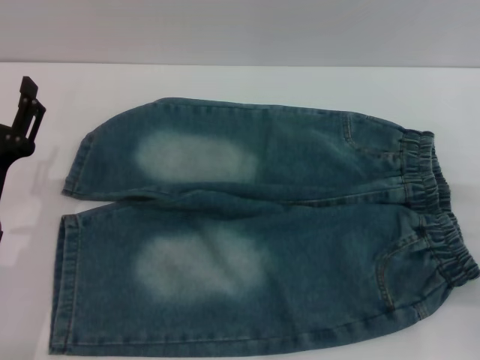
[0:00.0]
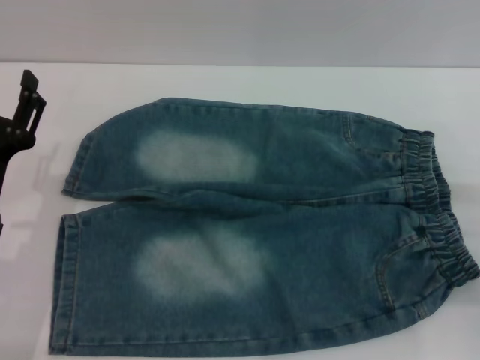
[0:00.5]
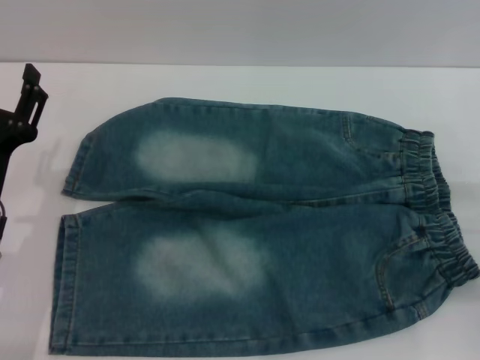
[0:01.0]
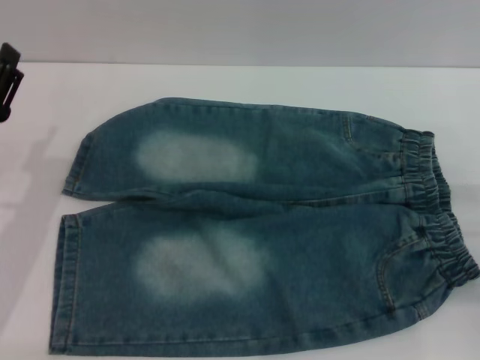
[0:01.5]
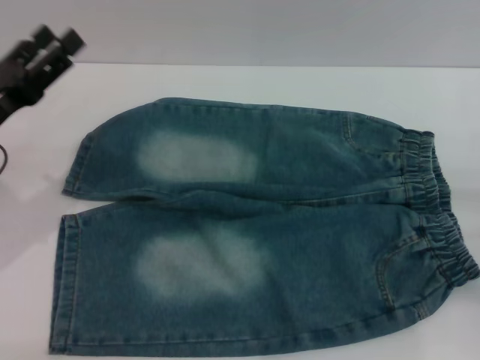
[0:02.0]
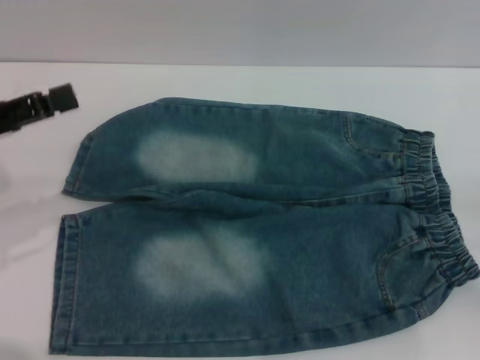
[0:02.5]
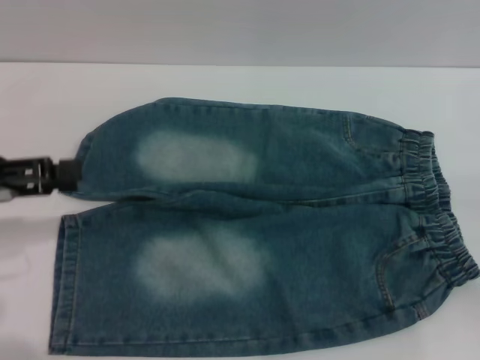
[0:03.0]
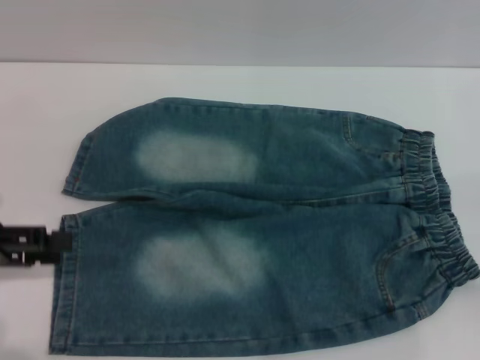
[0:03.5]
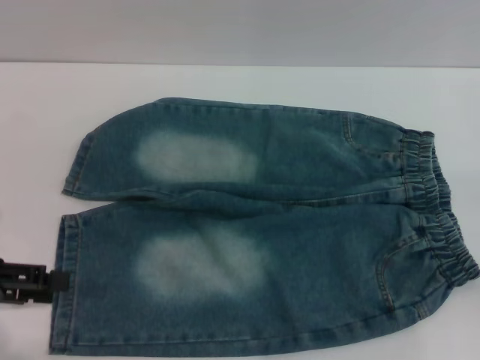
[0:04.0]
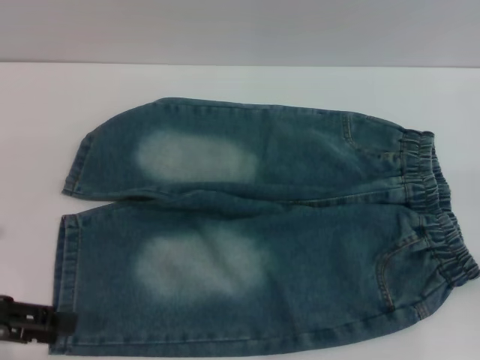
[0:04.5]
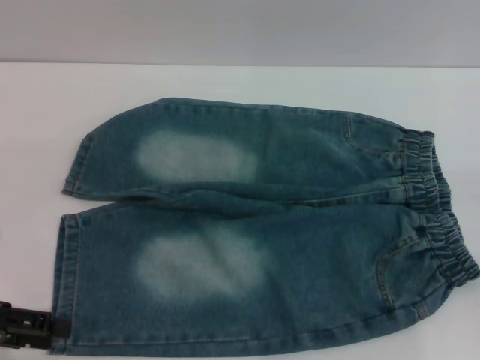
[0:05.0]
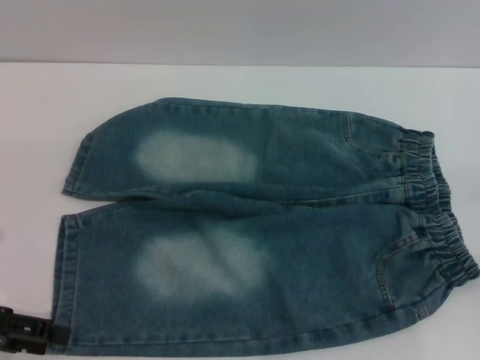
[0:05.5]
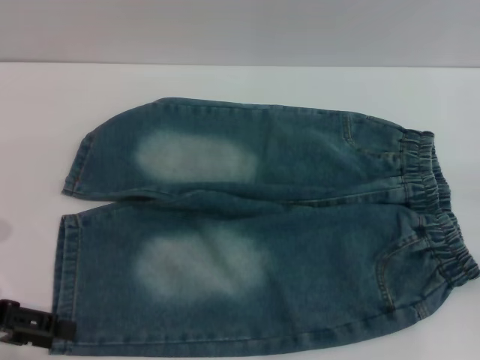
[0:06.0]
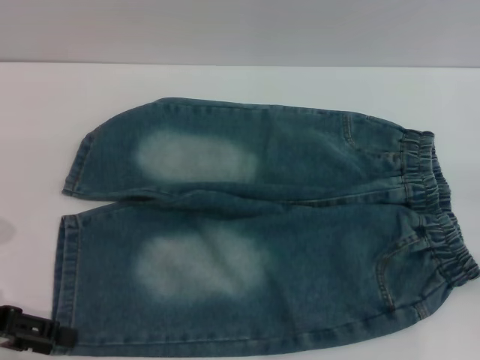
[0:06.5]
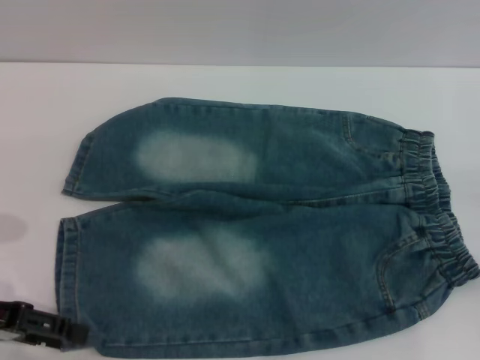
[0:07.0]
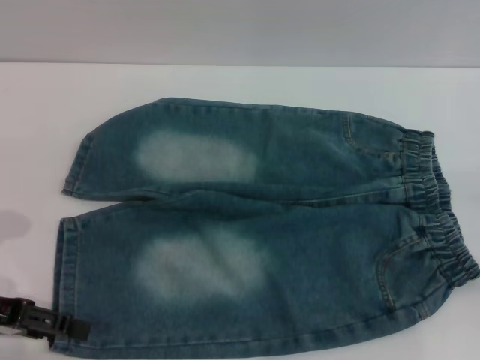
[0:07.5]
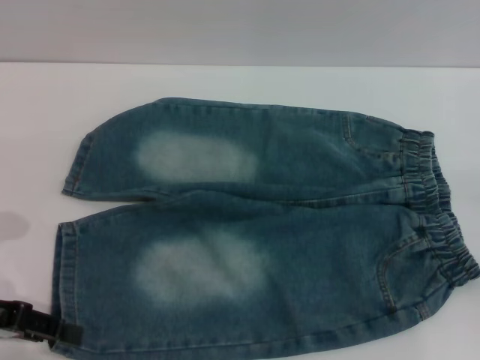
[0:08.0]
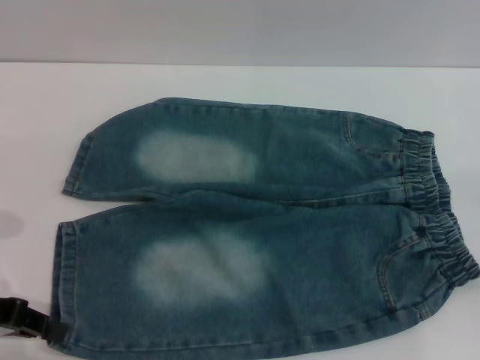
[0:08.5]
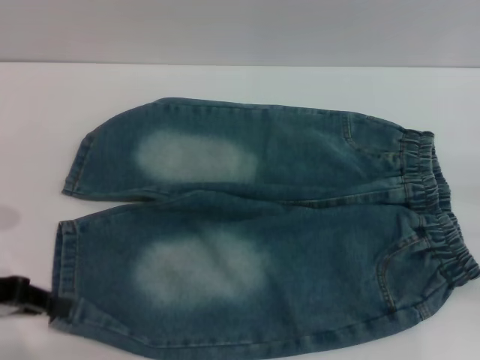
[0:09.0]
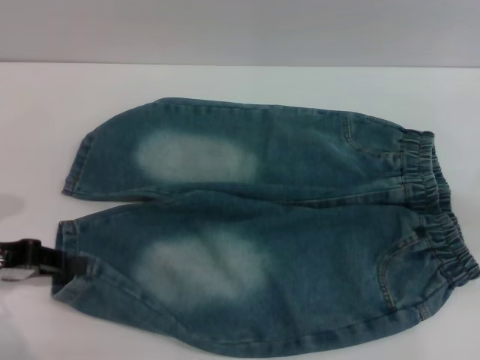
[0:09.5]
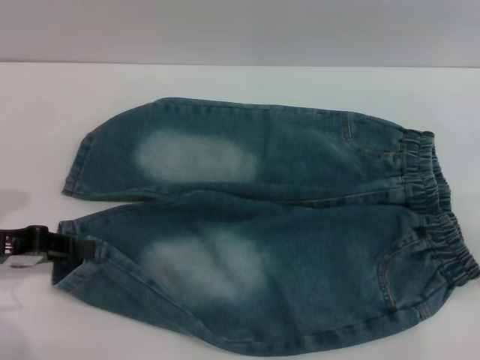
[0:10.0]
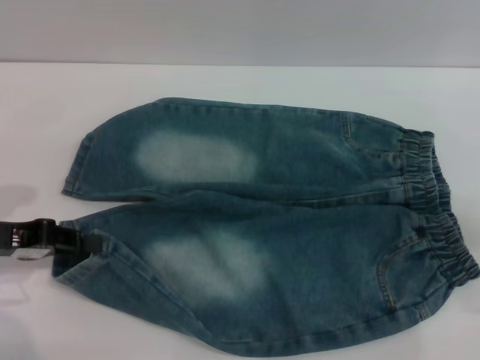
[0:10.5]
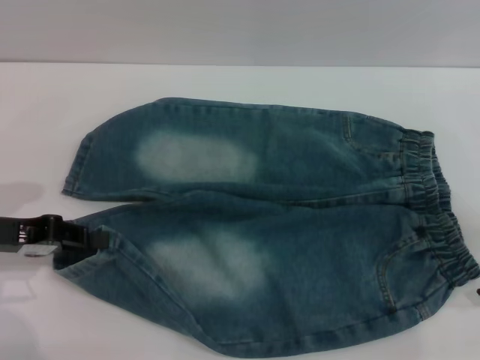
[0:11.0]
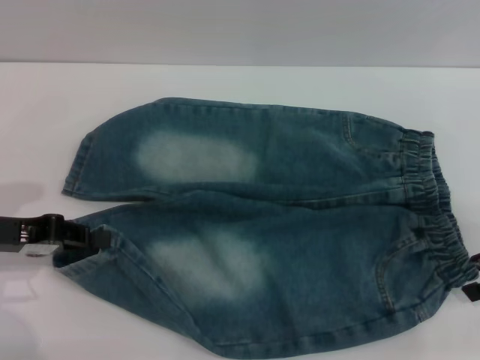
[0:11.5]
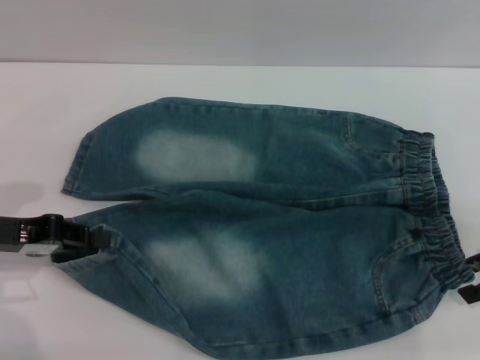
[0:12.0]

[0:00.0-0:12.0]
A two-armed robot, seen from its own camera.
0.0 to 2.0 s: The left gripper shifts roughly 10 cm forward and upward.
2.0 to 4.0 s: The left gripper is displaced to the left and backward by about 10 cm.
4.0 to 8.0 s: The grippers move only a little.
8.0 to 10.0 s: The right gripper travels upward by roughly 15 cm; the left gripper closes up.
10.0 to 12.0 s: The right gripper moves to the left, roughly 5 cm.

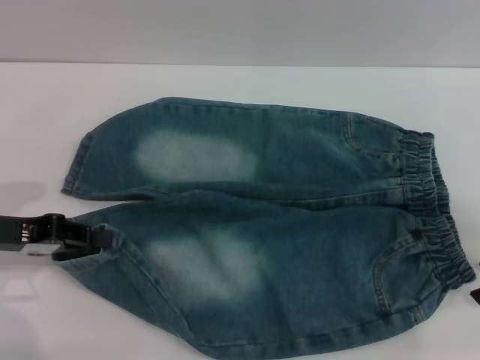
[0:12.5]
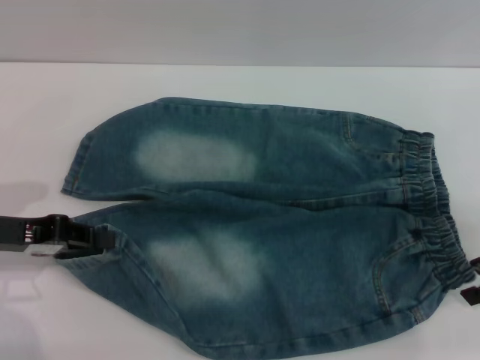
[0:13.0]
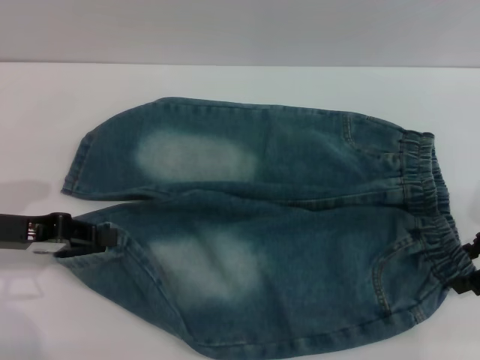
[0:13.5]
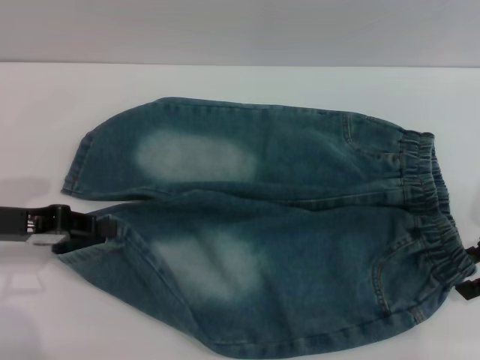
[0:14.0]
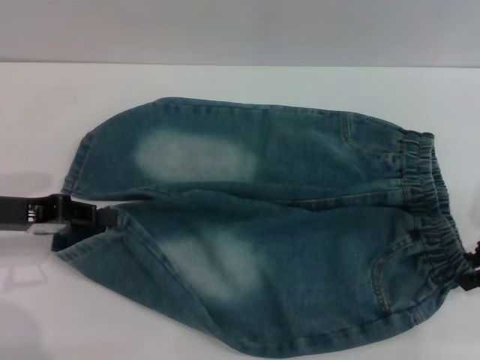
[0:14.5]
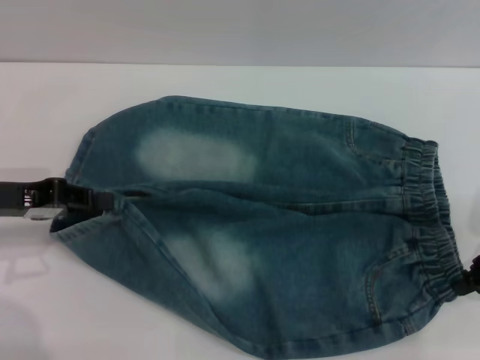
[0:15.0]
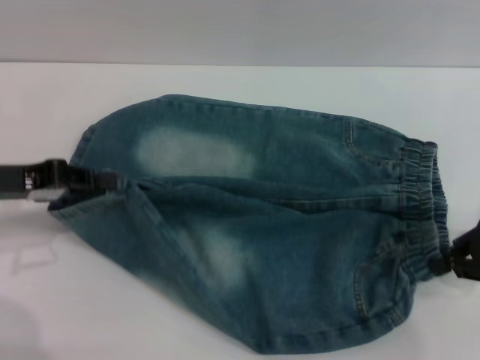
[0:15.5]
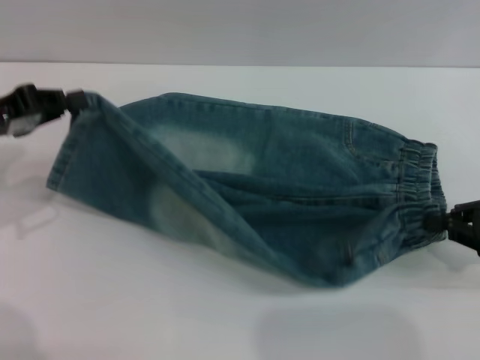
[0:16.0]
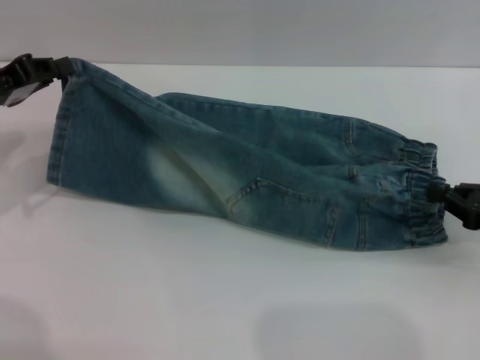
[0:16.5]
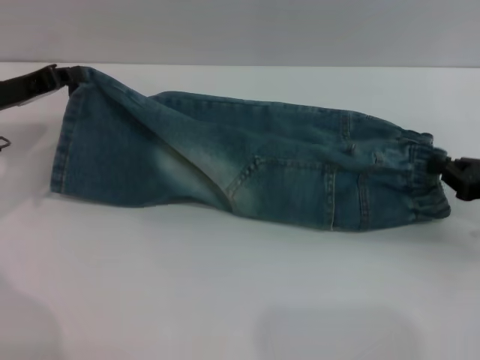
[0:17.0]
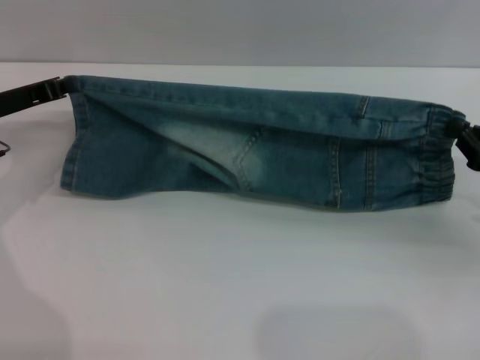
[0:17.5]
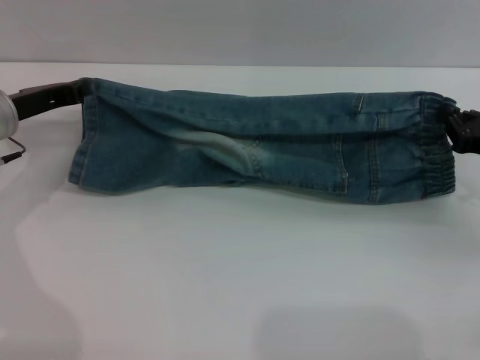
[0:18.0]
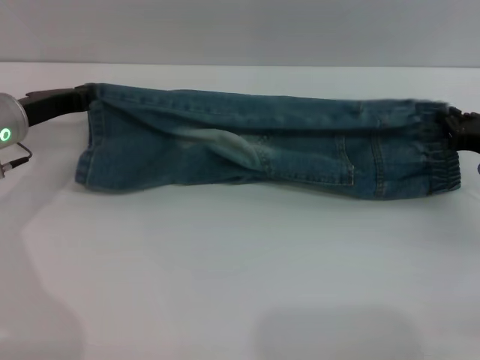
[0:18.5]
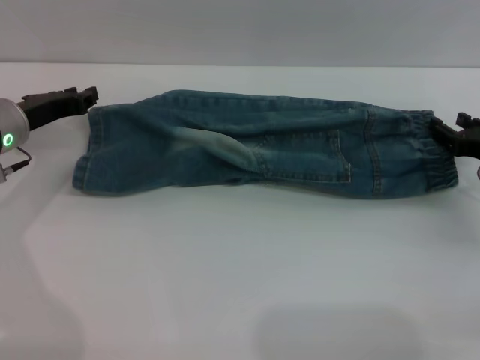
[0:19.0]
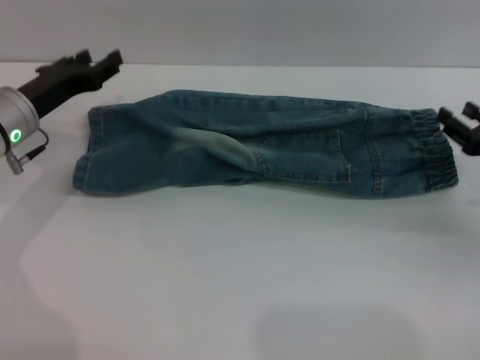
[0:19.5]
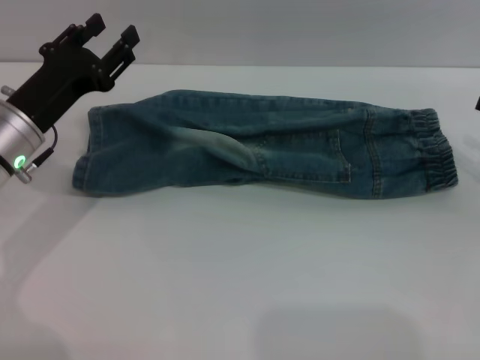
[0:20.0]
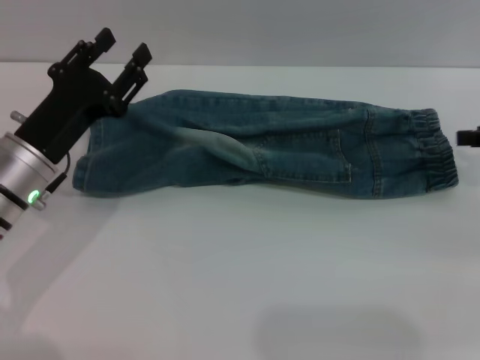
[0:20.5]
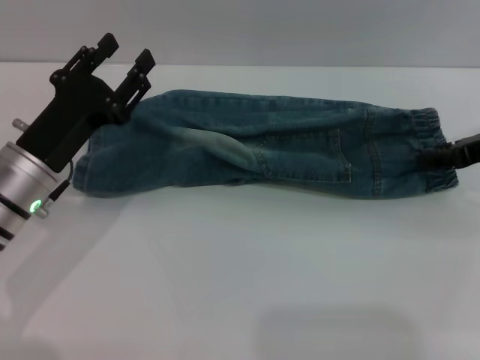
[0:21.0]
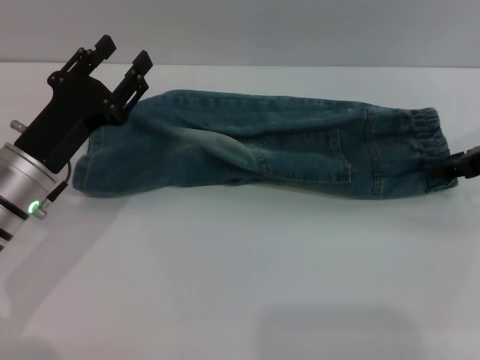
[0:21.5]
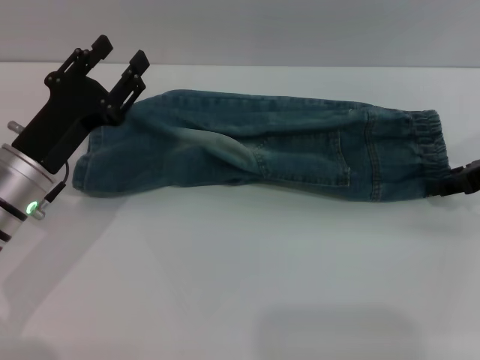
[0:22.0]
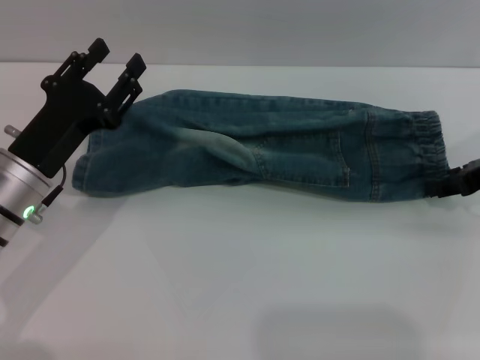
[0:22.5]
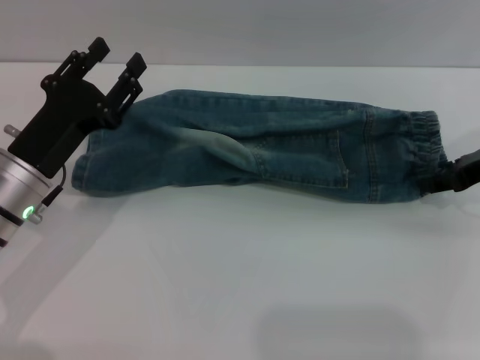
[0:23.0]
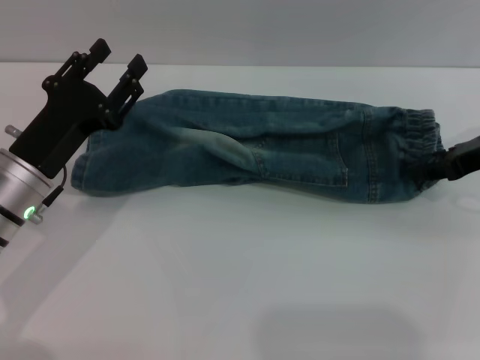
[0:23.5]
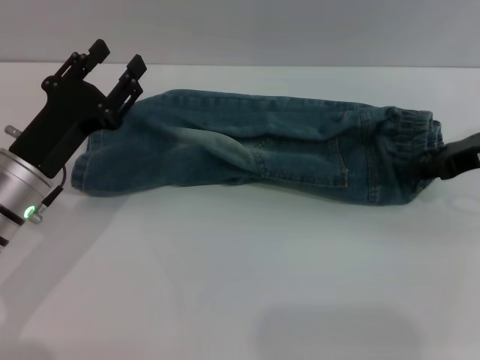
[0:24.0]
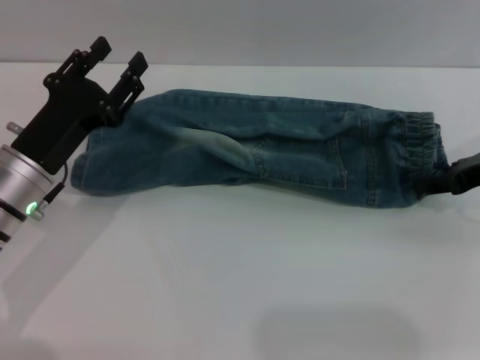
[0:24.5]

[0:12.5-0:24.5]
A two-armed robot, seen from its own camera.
Step, 12.5 to 19.0 s: Fold the bottom of the pants upward with both grippers.
12.5 to 14.5 s: The right gripper closes up.
14.5 to 16.5 s: The right gripper travels downward by about 5 cm, and closes its fingers. The left gripper goes roughly 5 cm forward.
16.5 to 18.5 s: The right gripper travels forward by roughly 5 cm, while the left gripper ends up some 10 cm from where it was.
18.5 to 20.5 s: The left gripper is displaced backward by roughly 10 cm, and opens up, while the right gripper travels upward by some 10 cm, and opens.
20.5 to 22.5 s: The right gripper shifts roughly 5 cm to the left.
22.5 to 24.5 s: The grippers make only small movements.

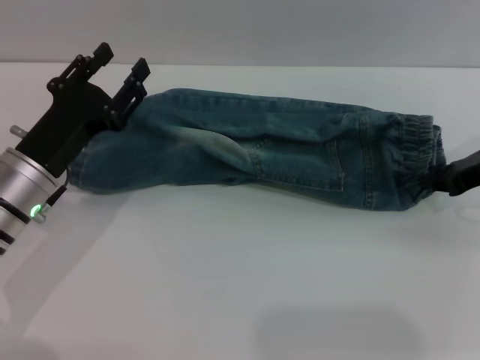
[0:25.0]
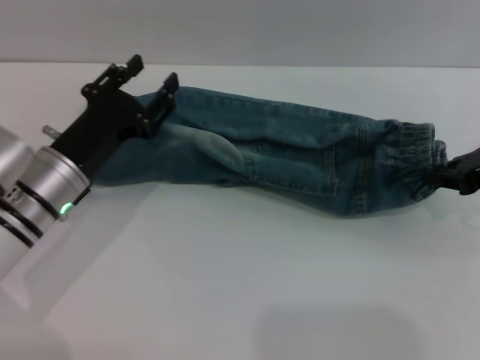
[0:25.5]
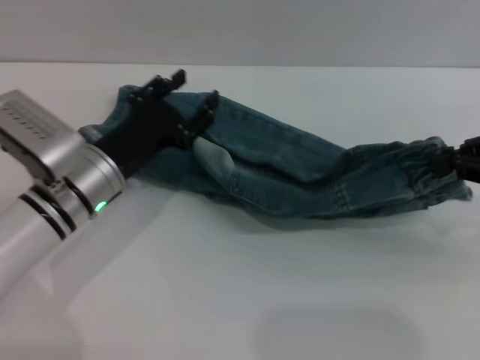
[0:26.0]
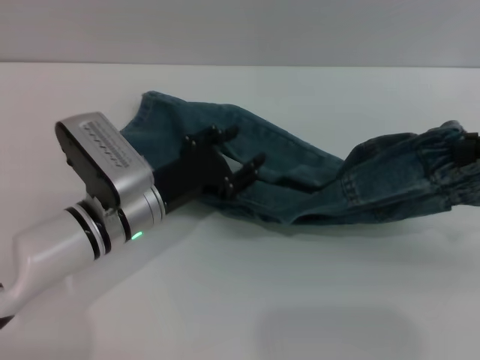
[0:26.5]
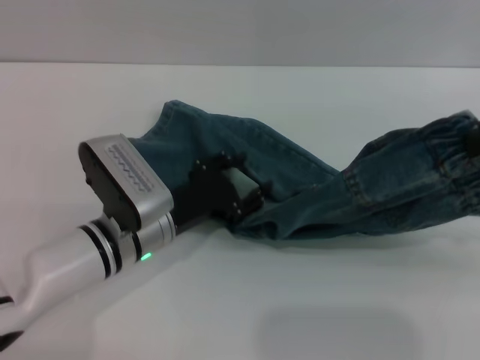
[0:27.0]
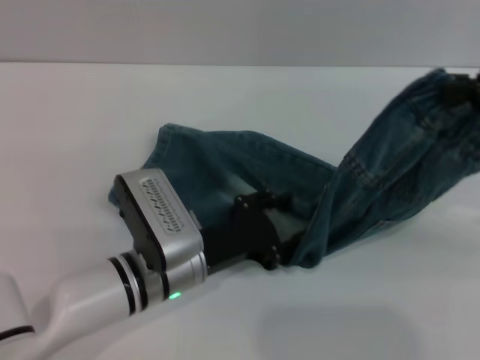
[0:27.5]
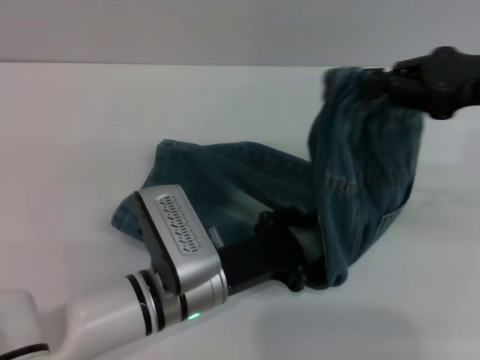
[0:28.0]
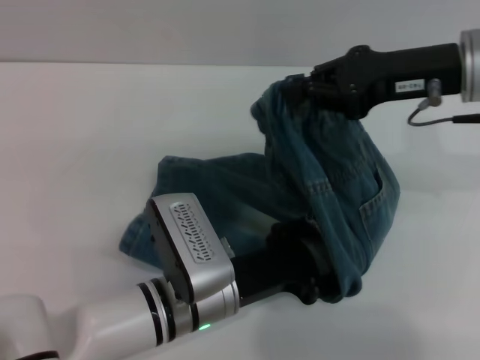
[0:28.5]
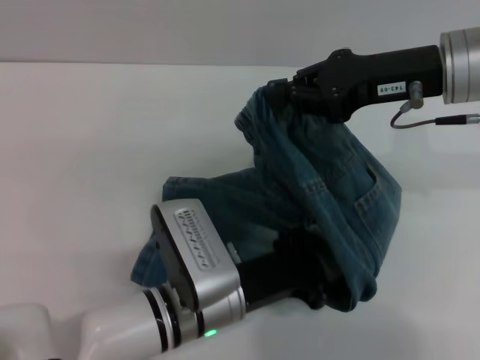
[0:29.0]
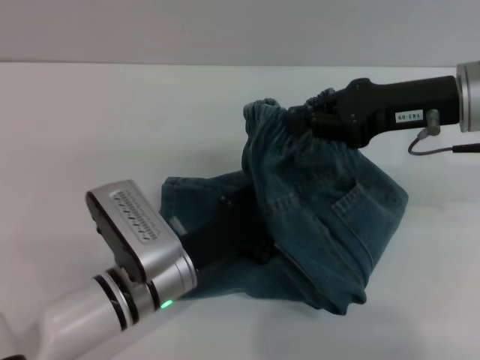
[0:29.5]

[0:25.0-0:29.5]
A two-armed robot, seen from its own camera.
25.0 to 27.0 s: The left gripper heads to the right, covering some 10 cm, while the right gripper travels upward and backward by some 15 cm.
27.0 to 29.5 s: The right gripper heads to the left, forward and downward, covering approximately 15 cm.
